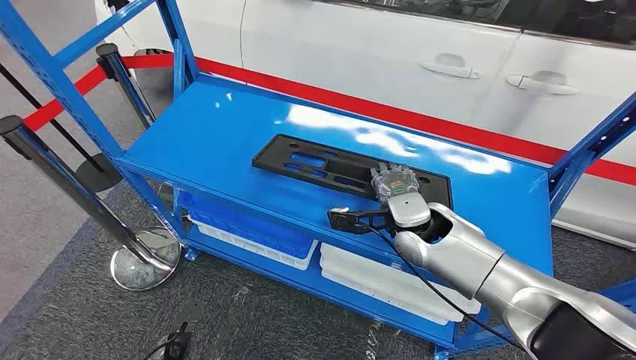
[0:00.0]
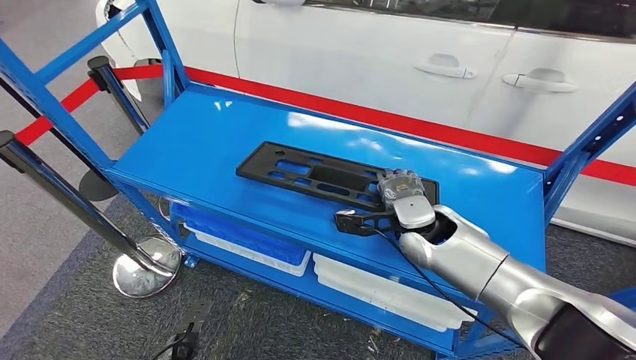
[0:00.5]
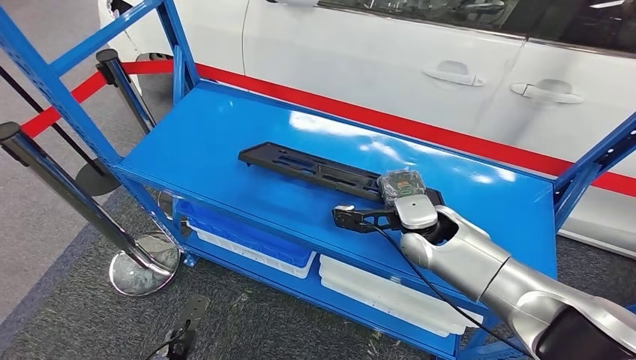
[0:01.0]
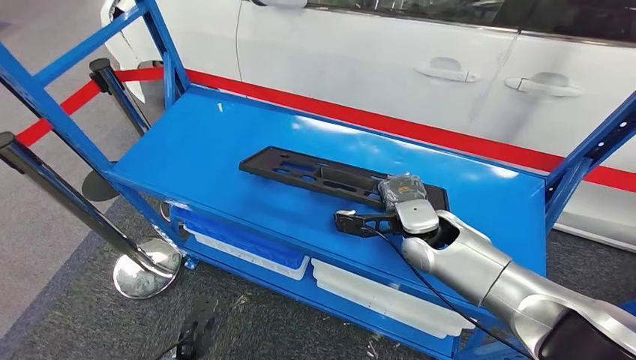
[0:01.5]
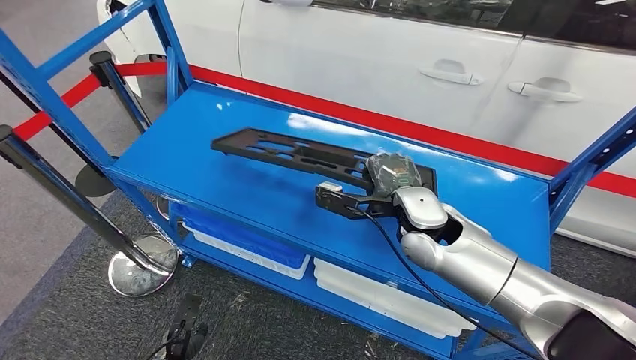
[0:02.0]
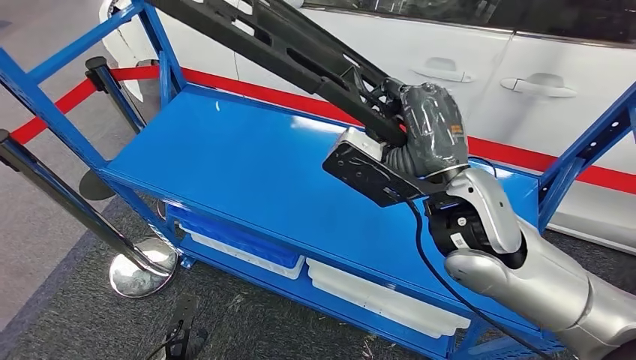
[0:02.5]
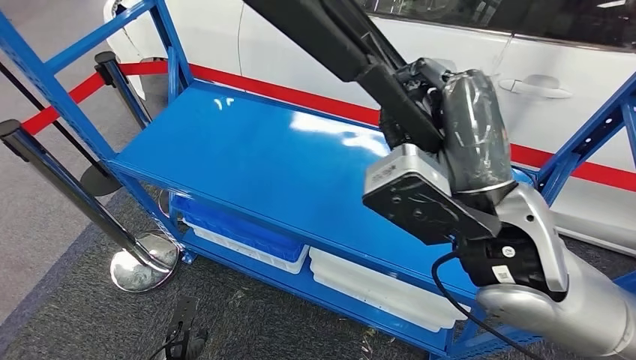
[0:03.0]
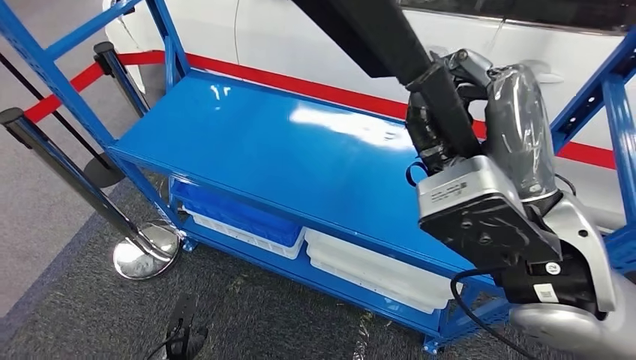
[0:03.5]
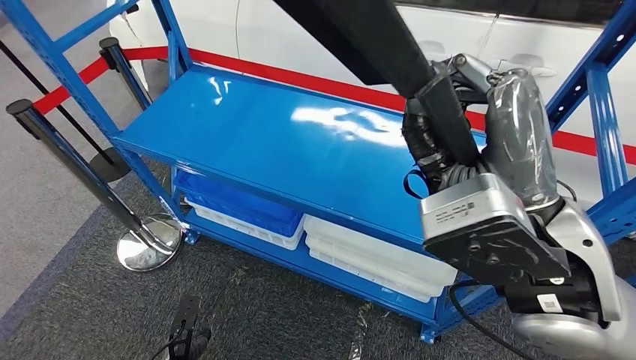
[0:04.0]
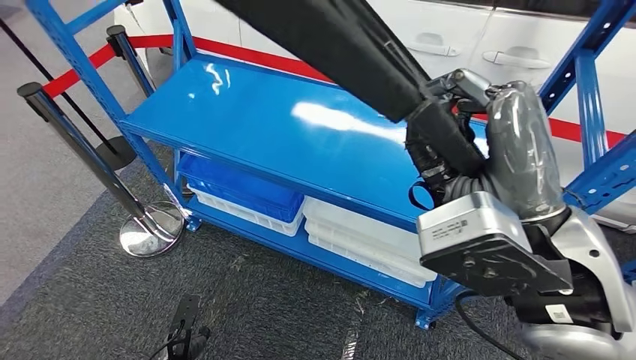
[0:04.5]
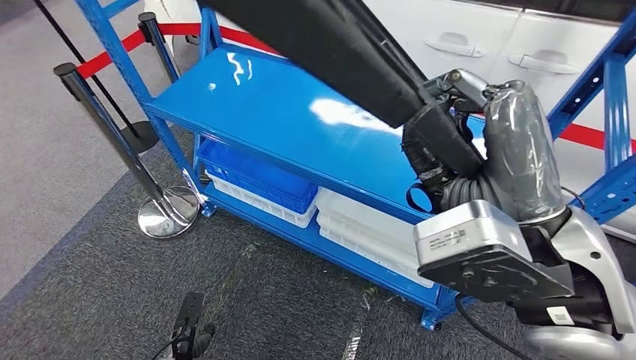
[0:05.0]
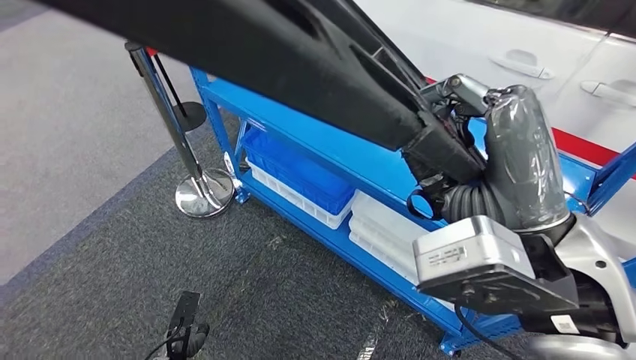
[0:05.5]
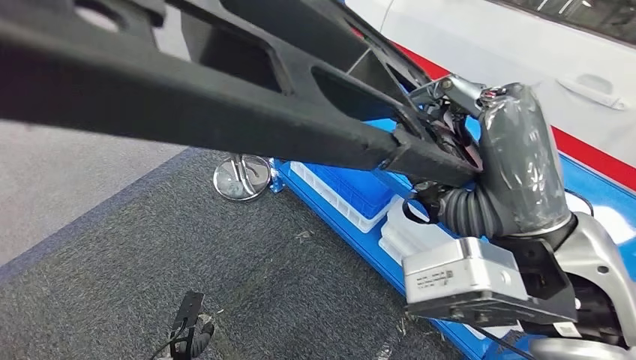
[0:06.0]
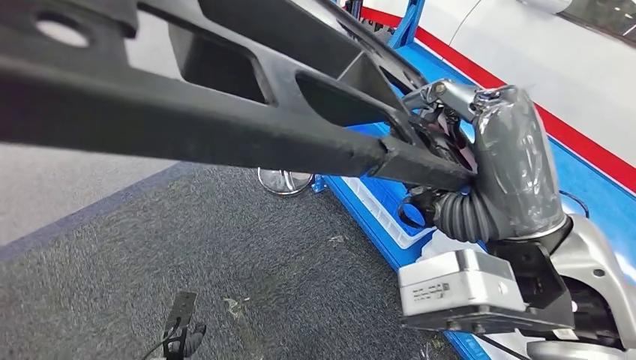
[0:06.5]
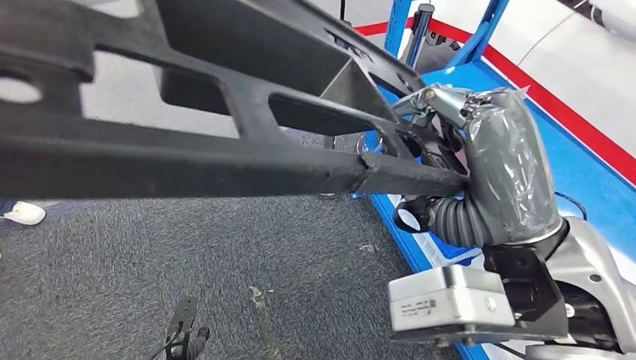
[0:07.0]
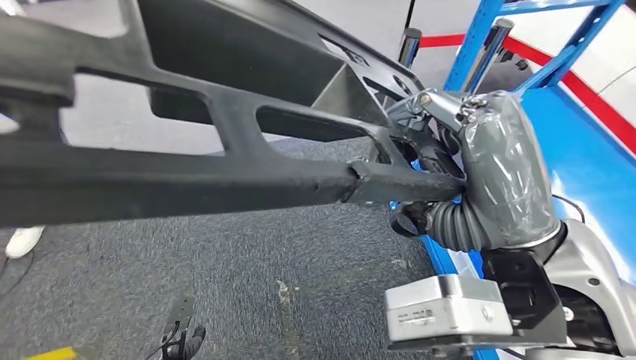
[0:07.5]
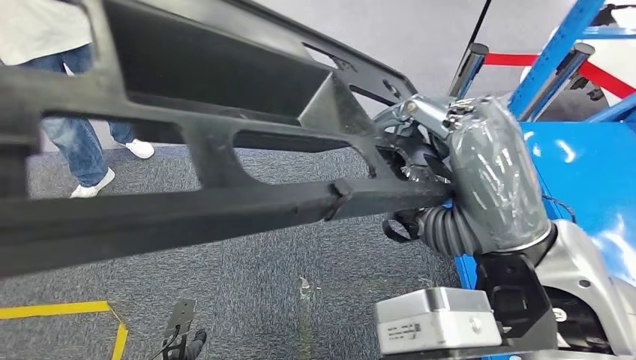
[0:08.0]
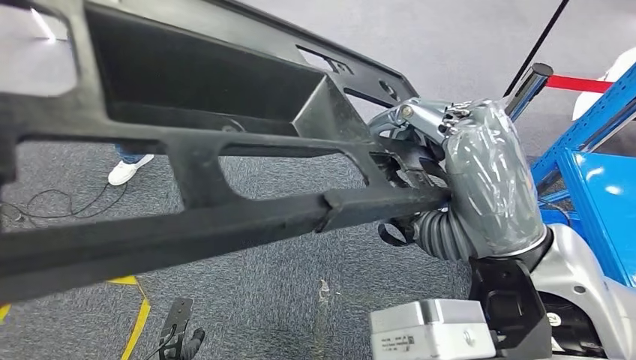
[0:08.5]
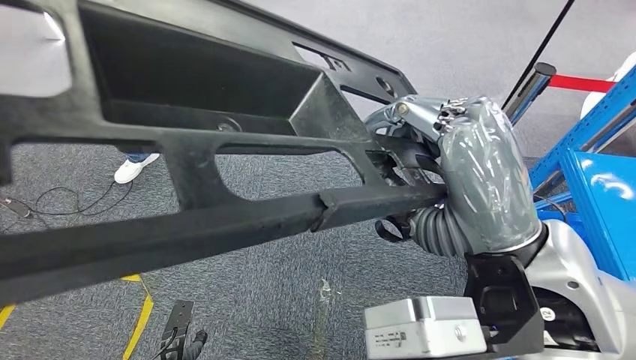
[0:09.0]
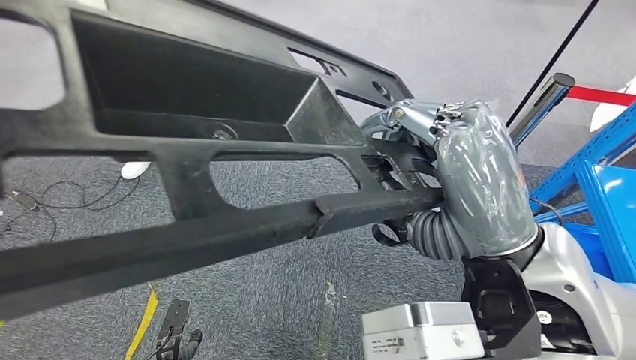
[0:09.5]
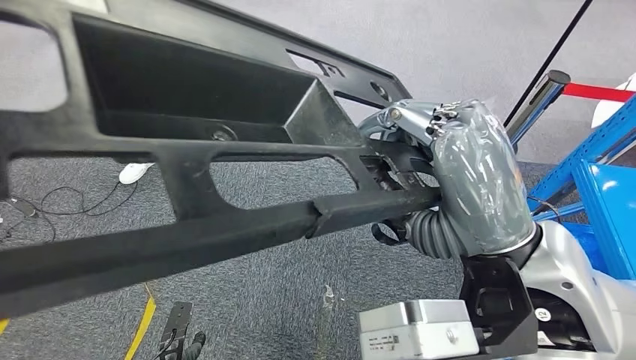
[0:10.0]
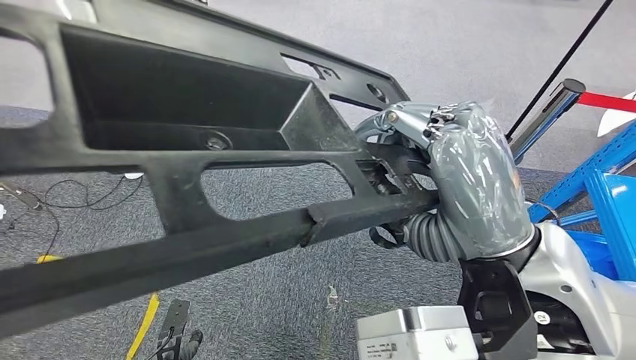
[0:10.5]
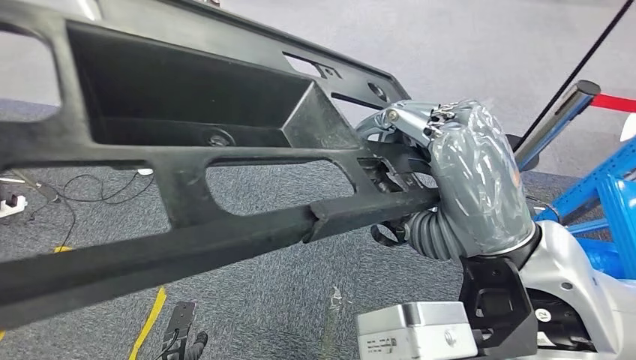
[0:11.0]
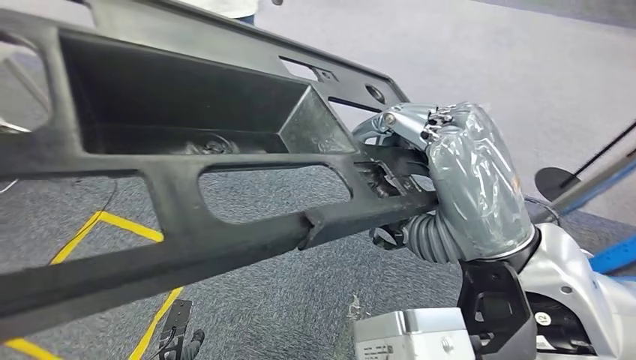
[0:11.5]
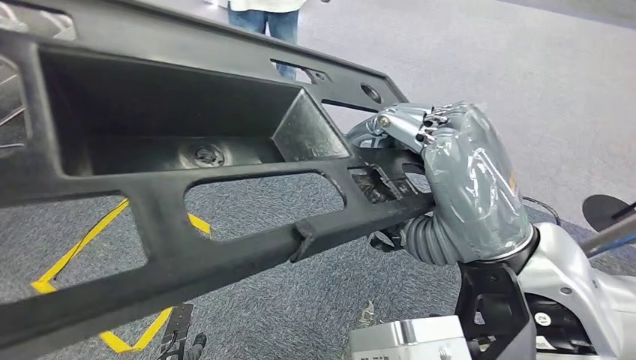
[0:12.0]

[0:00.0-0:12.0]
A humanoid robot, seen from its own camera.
Step, 0:00.0 to 0:04.5: Pick up the large material from the shelf.

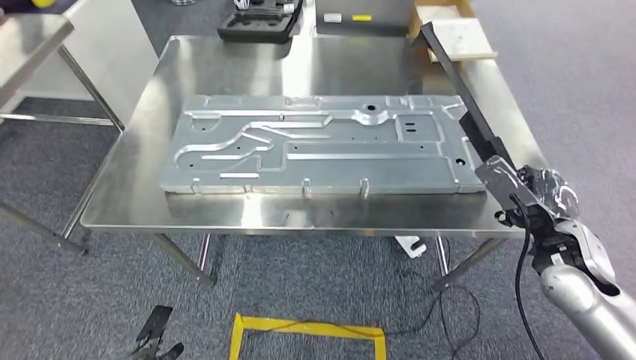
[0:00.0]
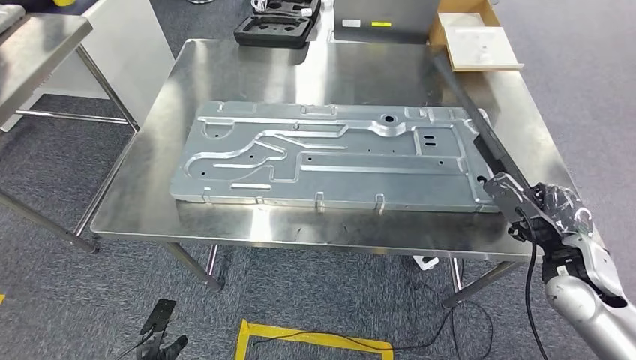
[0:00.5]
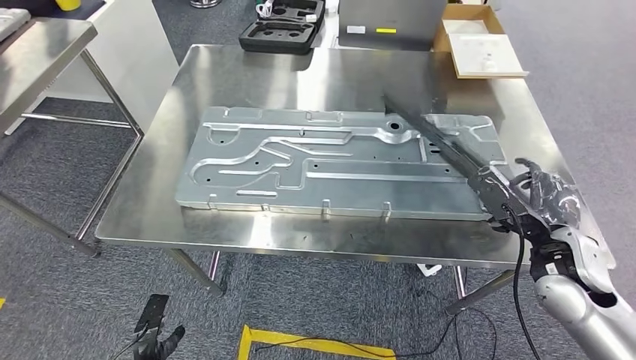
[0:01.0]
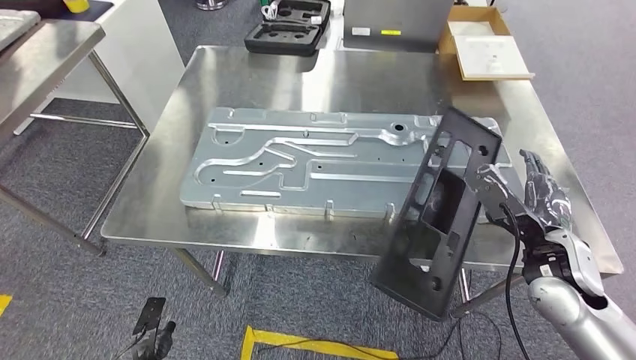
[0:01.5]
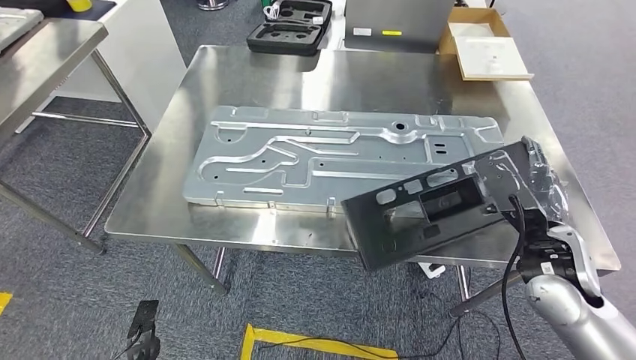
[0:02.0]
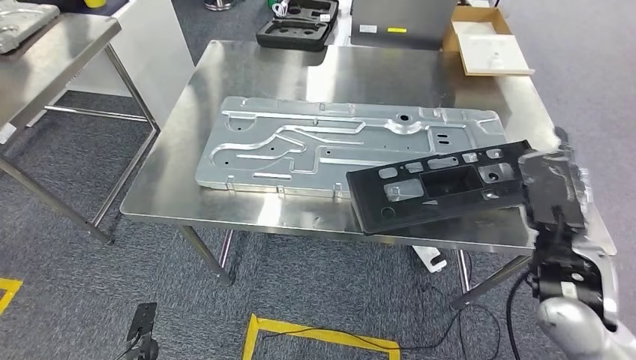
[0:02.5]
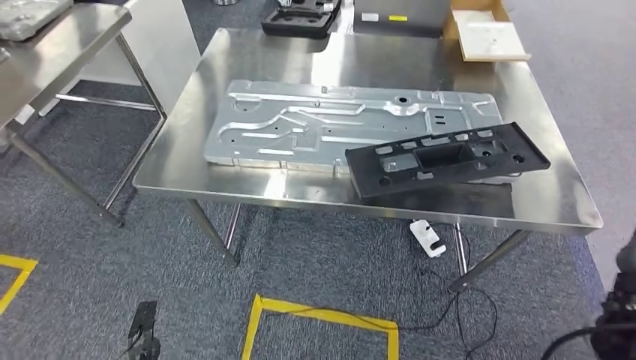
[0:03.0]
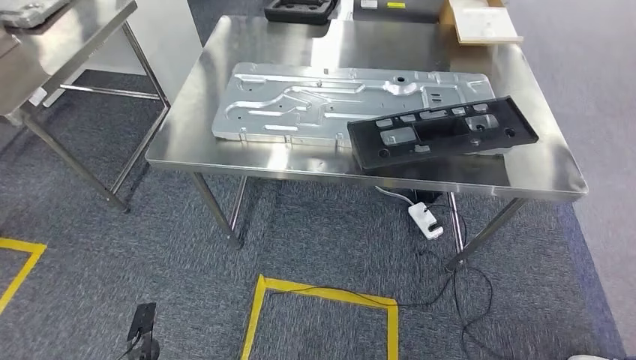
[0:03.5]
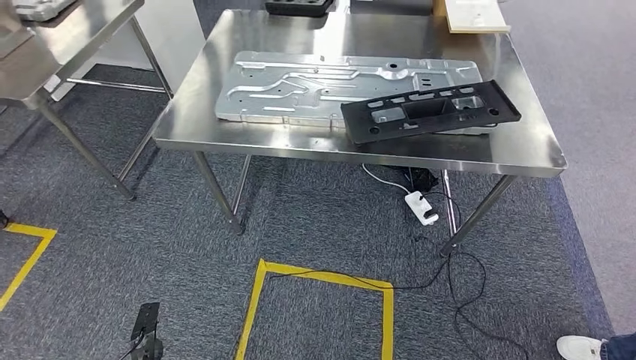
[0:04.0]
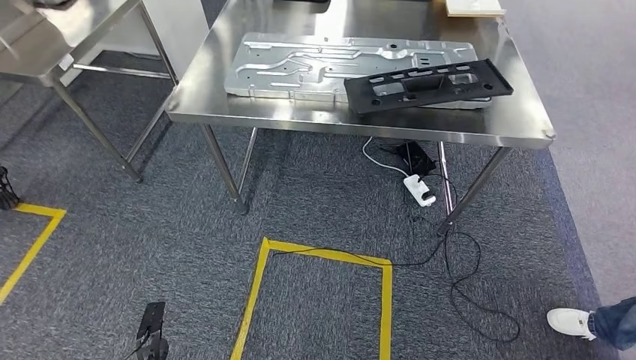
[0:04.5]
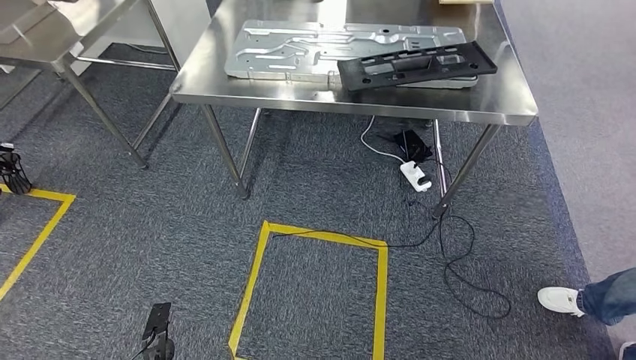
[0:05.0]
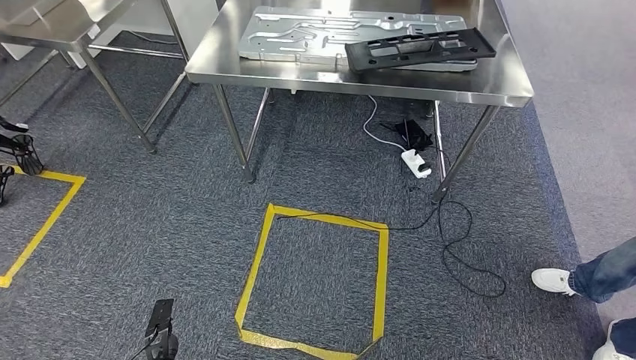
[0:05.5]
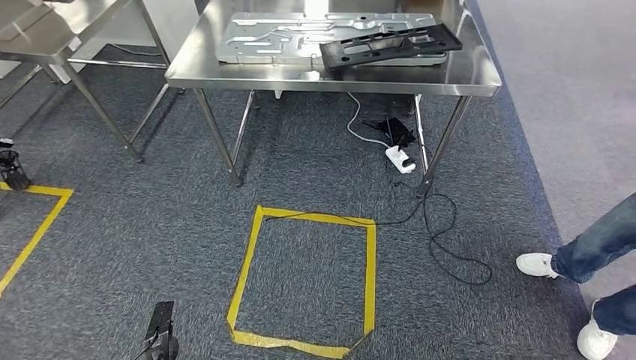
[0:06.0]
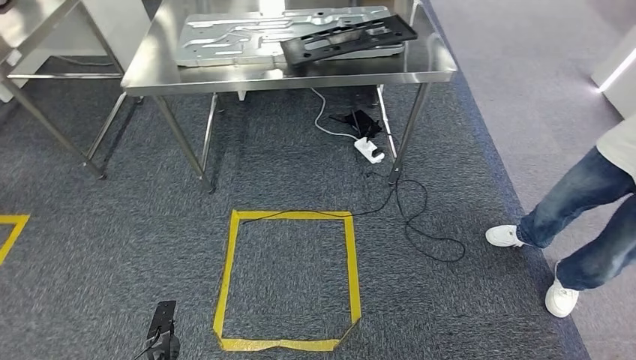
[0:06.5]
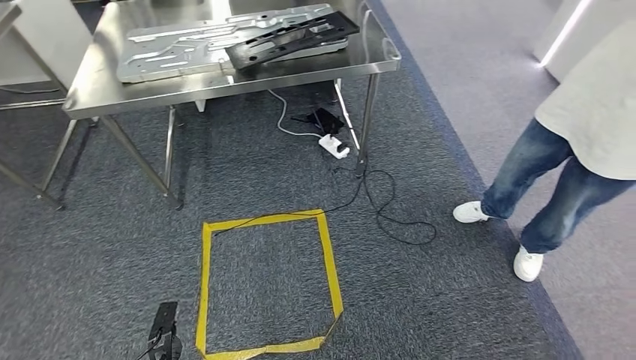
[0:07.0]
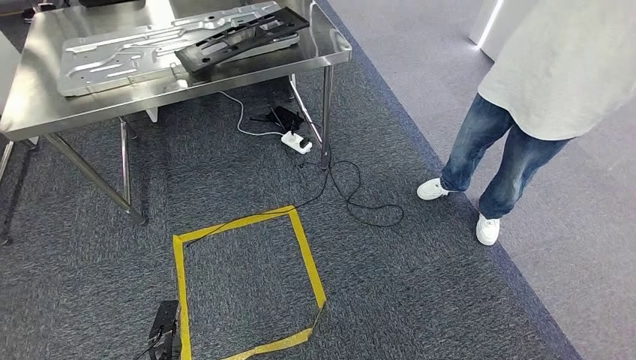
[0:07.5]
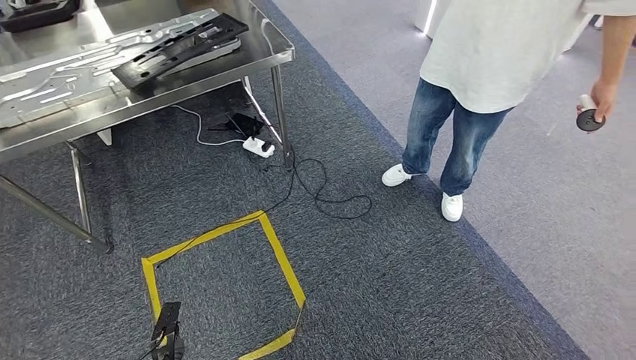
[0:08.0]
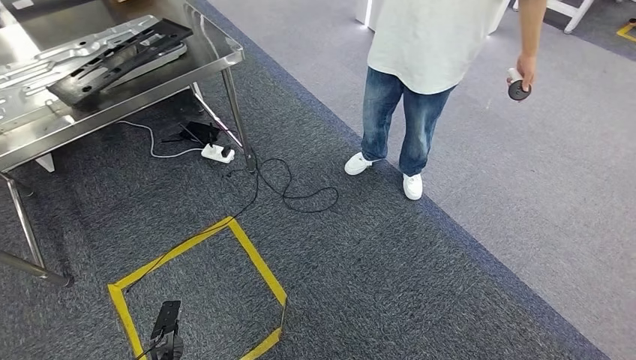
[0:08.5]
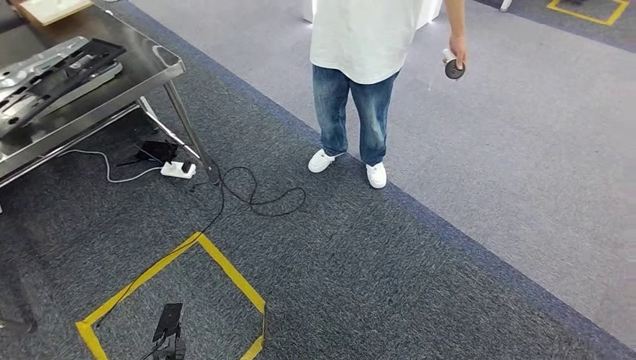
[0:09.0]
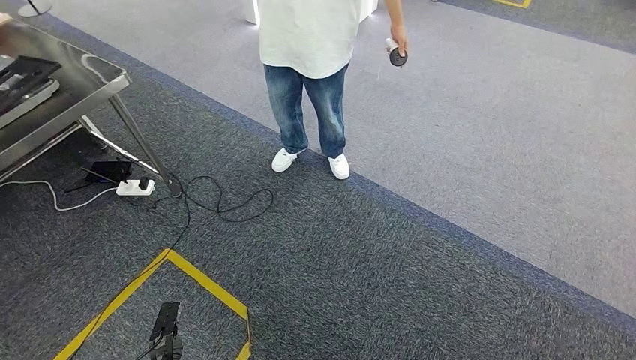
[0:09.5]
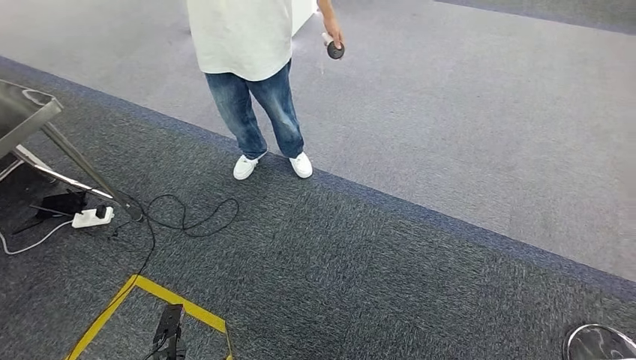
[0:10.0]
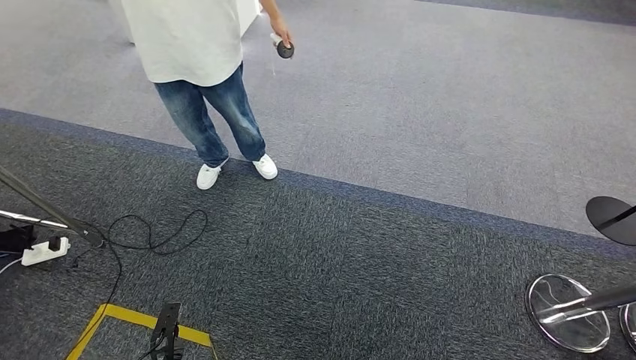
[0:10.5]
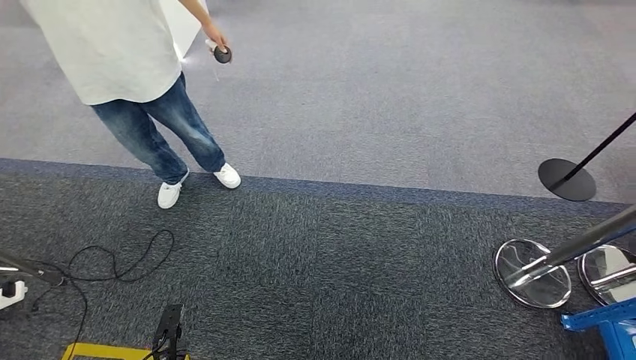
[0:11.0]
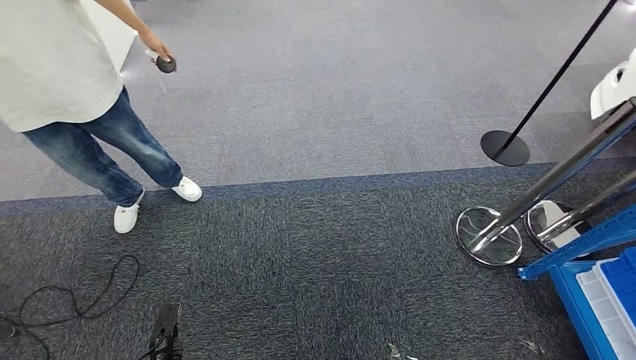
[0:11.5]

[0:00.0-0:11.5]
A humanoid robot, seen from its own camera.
Step, 0:00.0 to 0:02.5: Insert the large material into the corresponding slot on the workbench.
